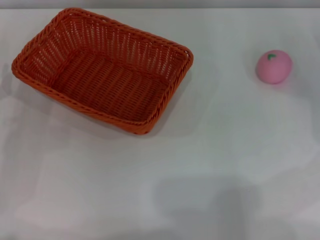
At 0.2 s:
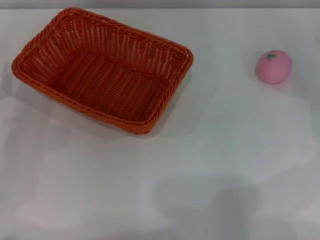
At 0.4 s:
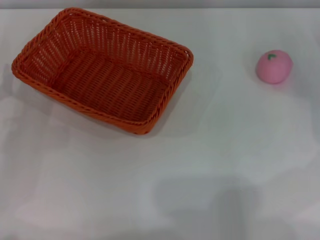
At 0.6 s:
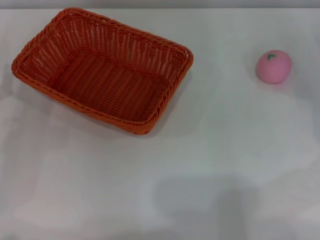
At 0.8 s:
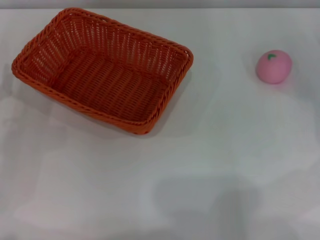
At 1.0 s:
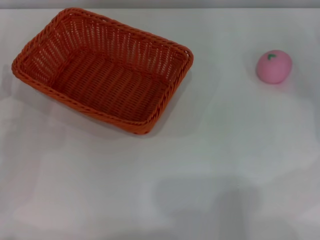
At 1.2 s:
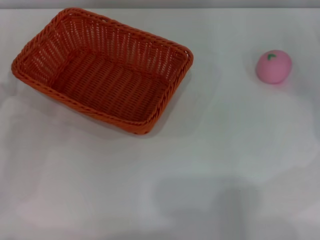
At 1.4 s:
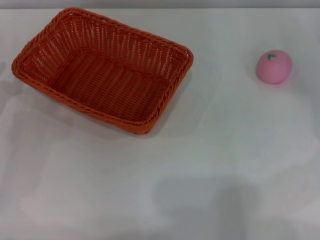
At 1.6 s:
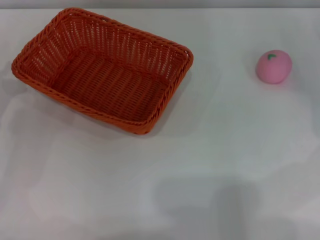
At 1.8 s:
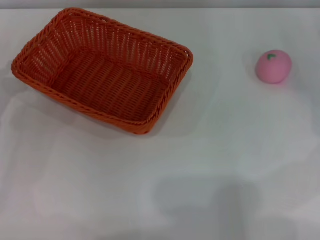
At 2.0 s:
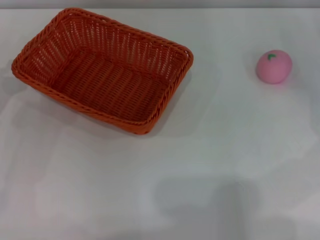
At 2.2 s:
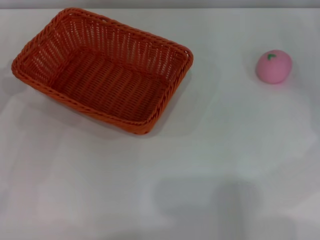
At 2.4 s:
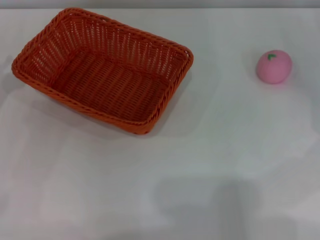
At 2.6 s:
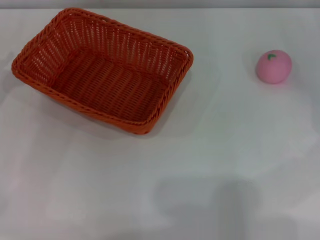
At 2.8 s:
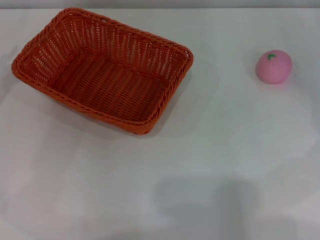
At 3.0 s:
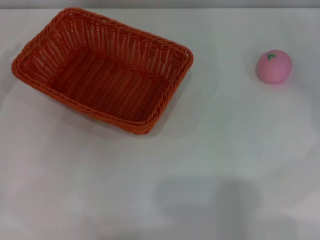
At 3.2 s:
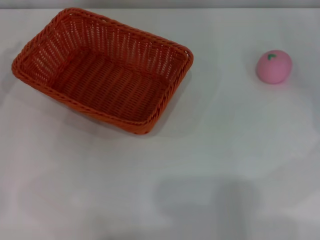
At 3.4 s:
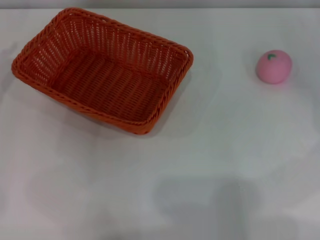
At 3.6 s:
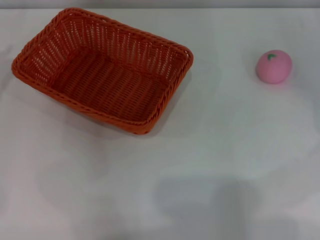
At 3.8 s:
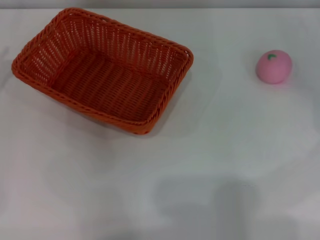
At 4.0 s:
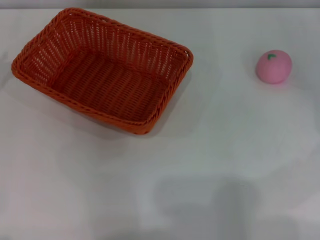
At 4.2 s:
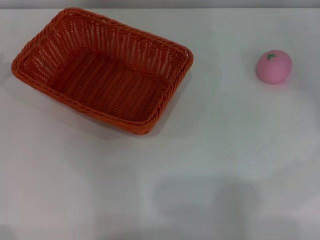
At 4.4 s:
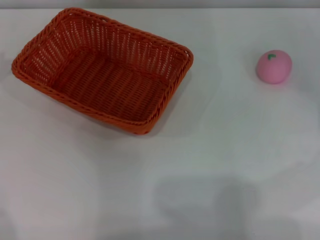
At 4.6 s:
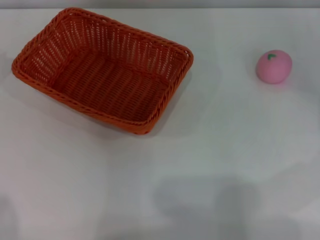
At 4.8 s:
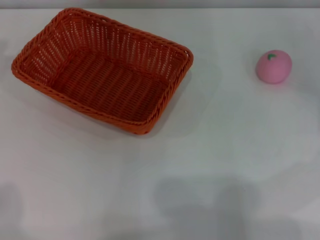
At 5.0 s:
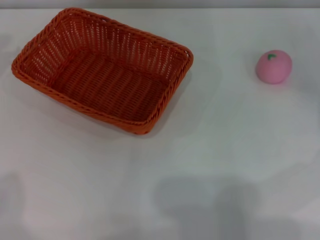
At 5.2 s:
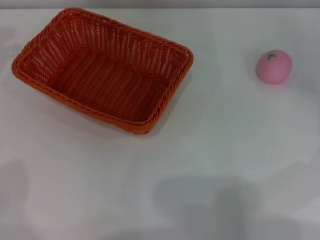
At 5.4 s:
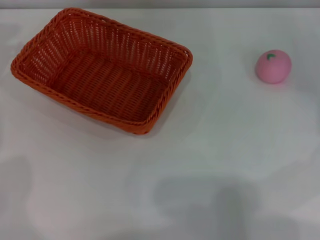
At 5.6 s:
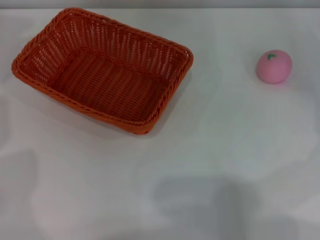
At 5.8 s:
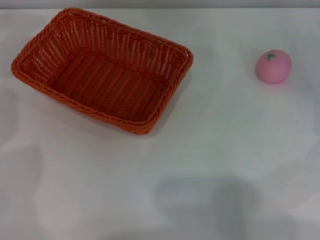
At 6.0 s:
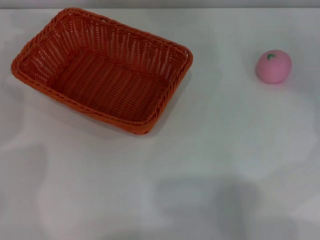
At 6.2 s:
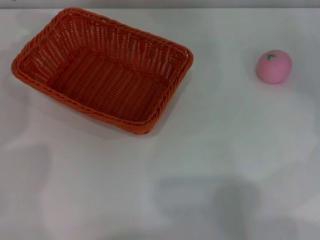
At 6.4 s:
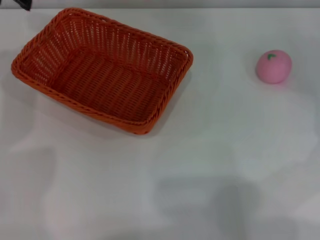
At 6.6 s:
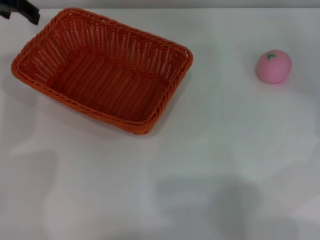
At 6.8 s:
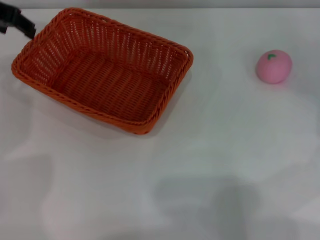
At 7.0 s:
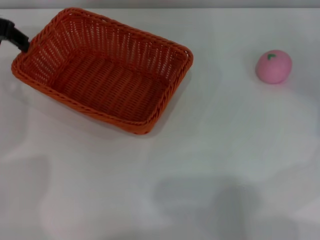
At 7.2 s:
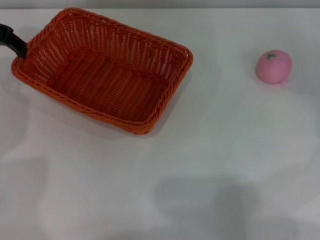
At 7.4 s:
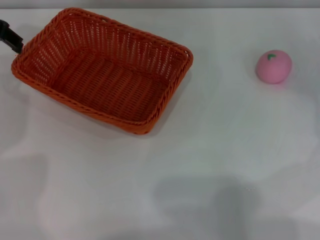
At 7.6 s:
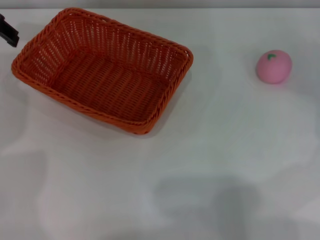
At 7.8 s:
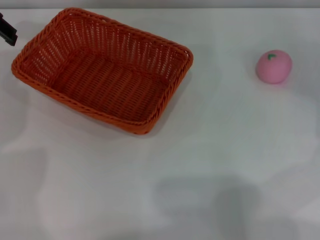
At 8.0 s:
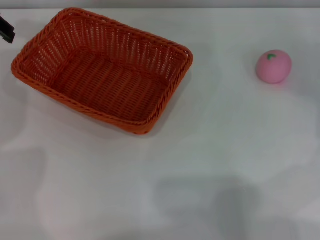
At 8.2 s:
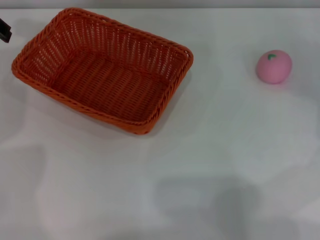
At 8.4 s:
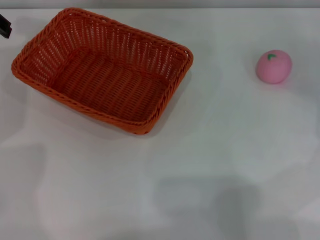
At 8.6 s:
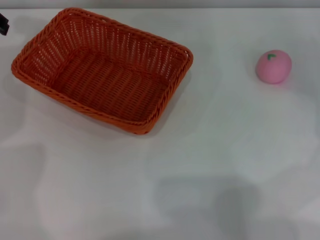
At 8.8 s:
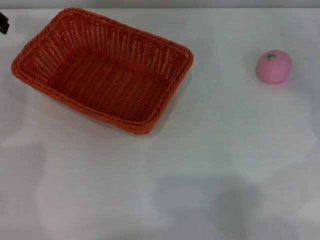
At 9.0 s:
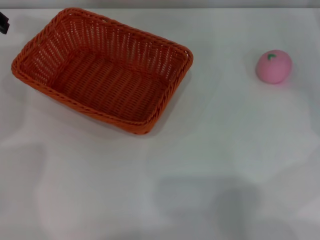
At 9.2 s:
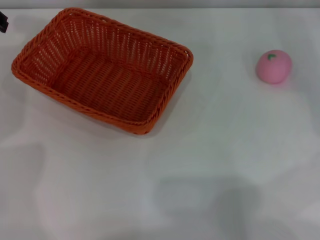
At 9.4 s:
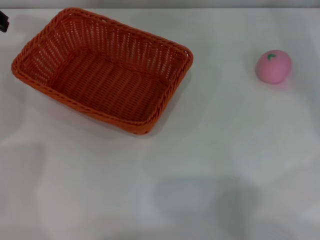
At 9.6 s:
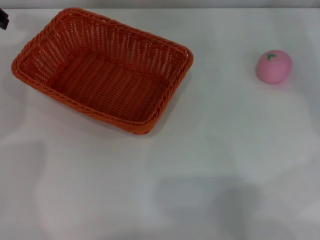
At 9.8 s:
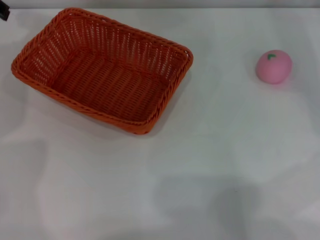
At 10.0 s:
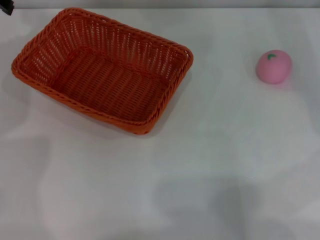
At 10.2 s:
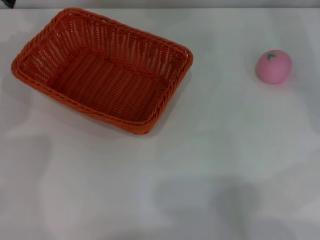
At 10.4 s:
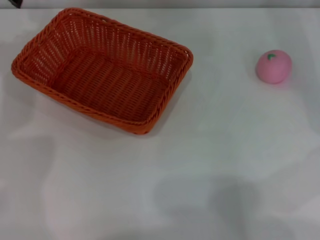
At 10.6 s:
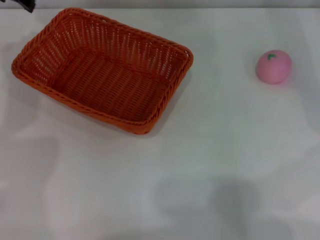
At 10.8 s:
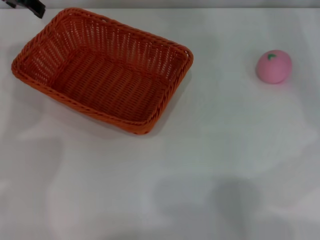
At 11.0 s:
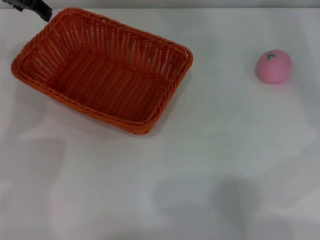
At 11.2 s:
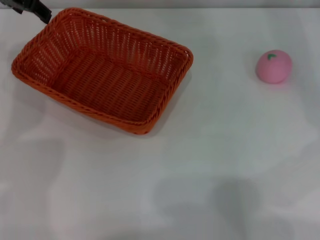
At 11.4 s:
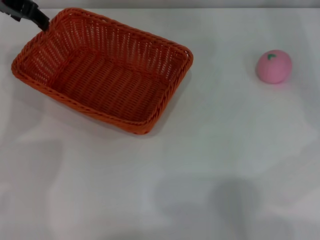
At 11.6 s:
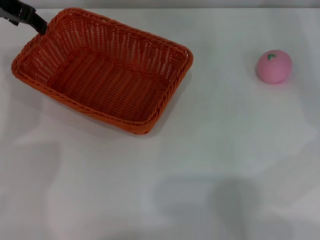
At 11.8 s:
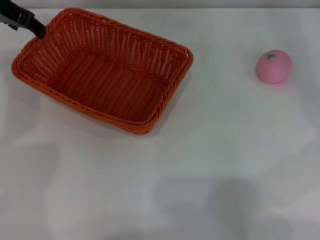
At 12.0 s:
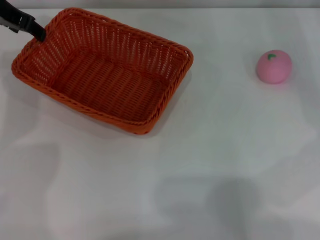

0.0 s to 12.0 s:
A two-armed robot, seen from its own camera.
10.4 to 12.0 s: The grippers stay close to where they were, moving slightly.

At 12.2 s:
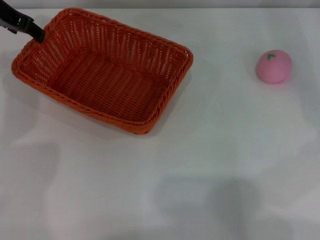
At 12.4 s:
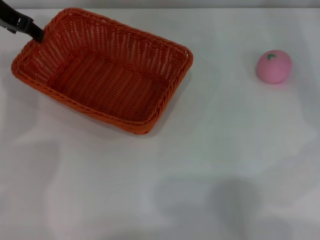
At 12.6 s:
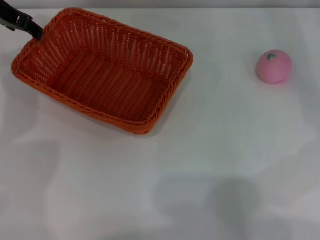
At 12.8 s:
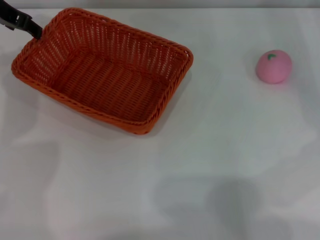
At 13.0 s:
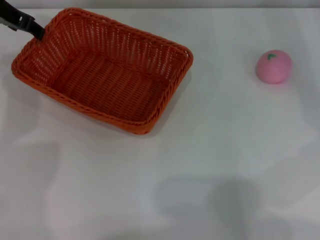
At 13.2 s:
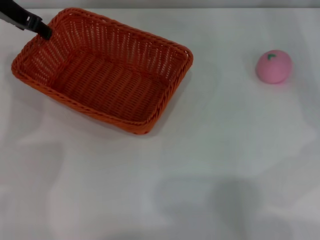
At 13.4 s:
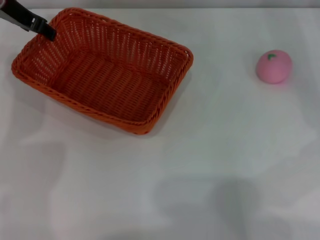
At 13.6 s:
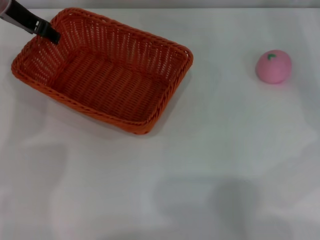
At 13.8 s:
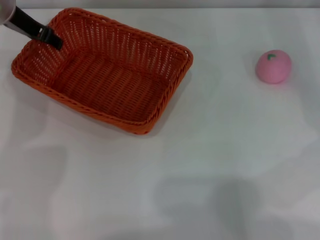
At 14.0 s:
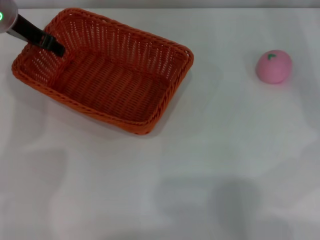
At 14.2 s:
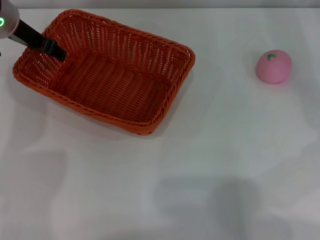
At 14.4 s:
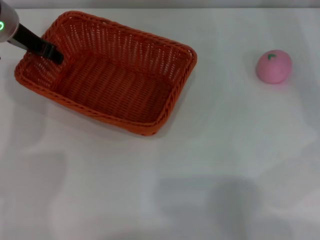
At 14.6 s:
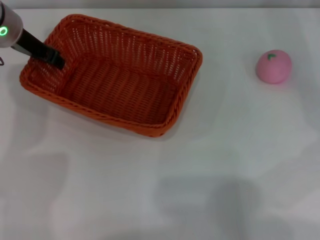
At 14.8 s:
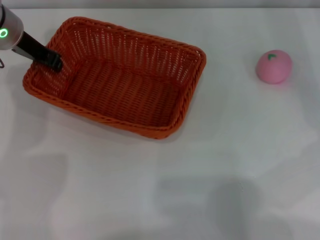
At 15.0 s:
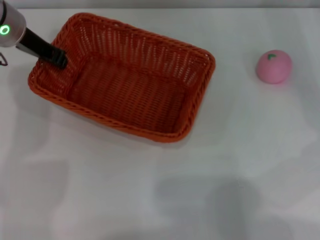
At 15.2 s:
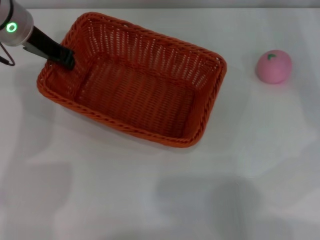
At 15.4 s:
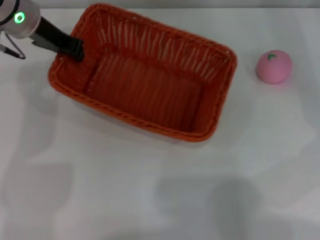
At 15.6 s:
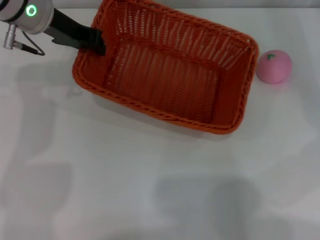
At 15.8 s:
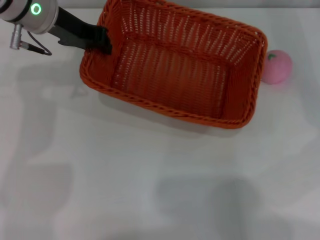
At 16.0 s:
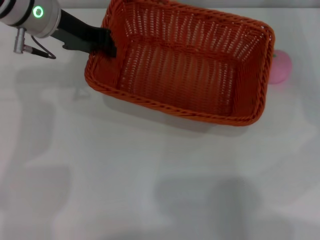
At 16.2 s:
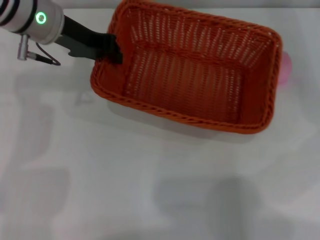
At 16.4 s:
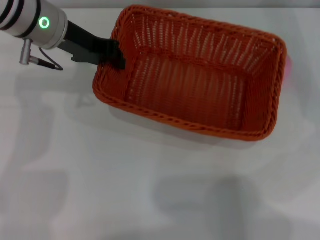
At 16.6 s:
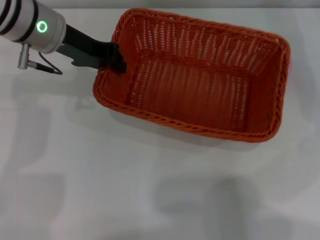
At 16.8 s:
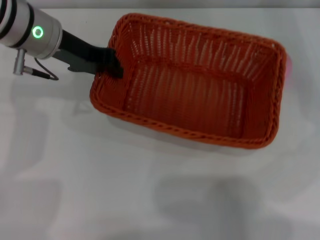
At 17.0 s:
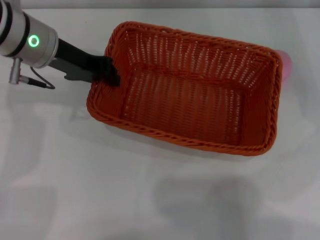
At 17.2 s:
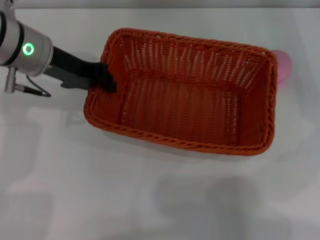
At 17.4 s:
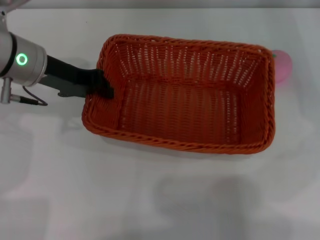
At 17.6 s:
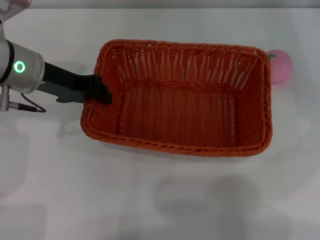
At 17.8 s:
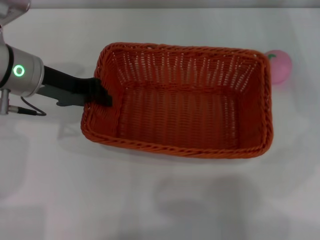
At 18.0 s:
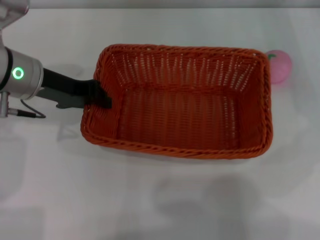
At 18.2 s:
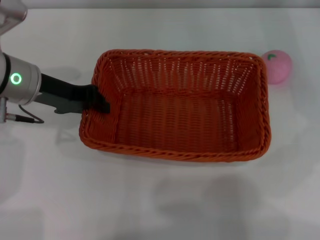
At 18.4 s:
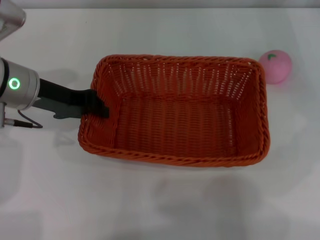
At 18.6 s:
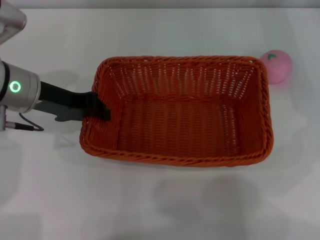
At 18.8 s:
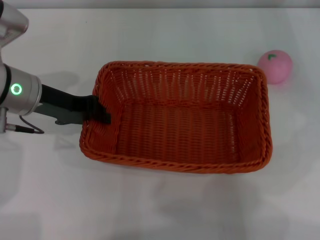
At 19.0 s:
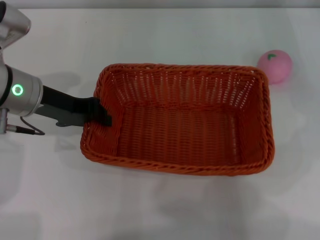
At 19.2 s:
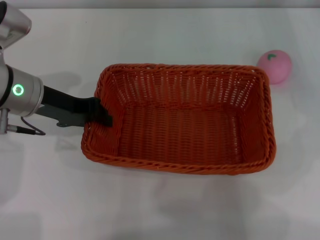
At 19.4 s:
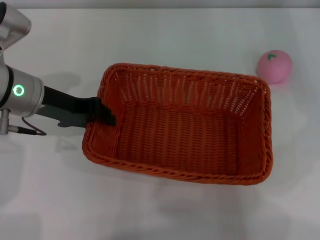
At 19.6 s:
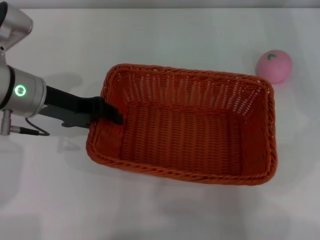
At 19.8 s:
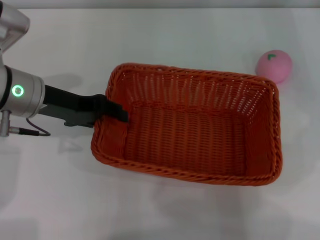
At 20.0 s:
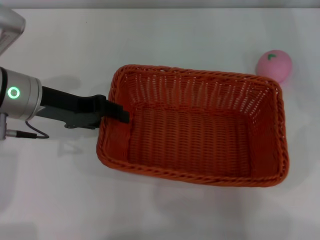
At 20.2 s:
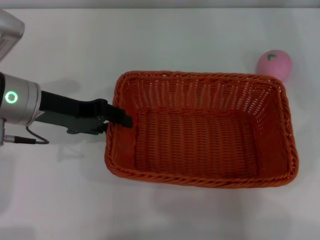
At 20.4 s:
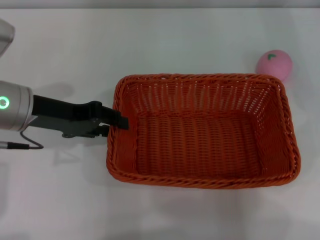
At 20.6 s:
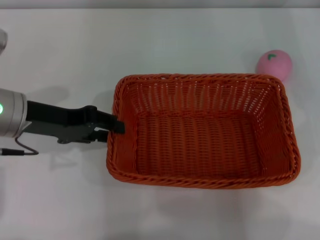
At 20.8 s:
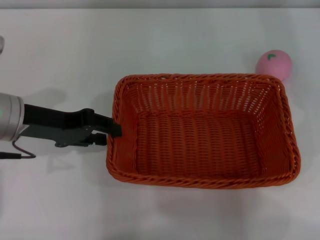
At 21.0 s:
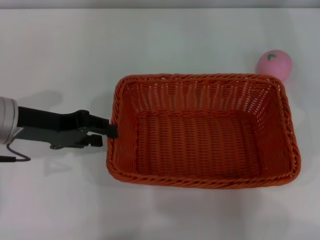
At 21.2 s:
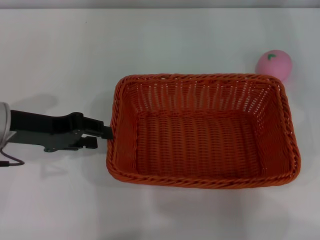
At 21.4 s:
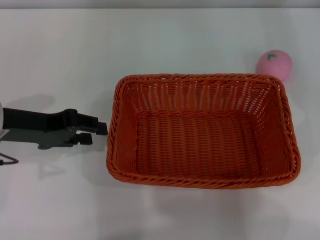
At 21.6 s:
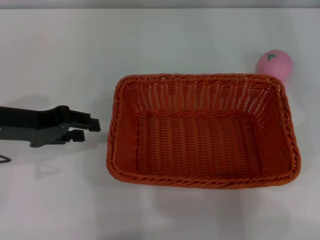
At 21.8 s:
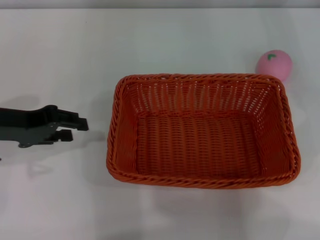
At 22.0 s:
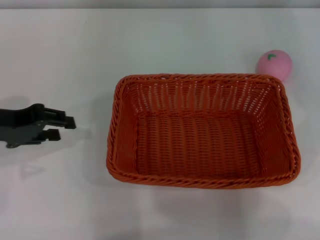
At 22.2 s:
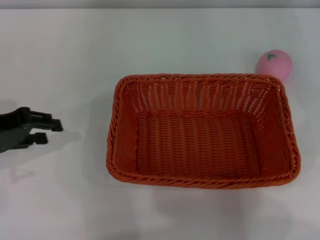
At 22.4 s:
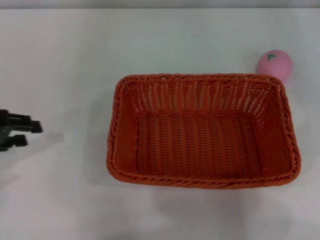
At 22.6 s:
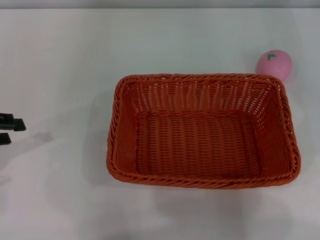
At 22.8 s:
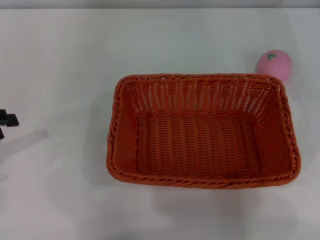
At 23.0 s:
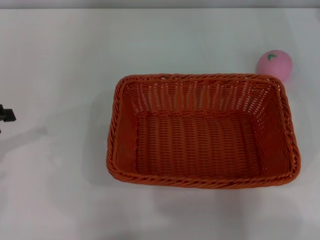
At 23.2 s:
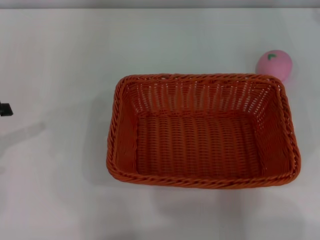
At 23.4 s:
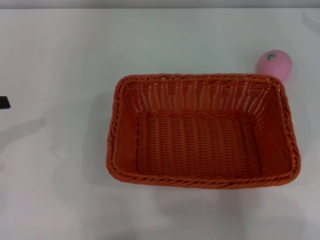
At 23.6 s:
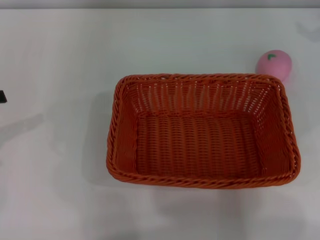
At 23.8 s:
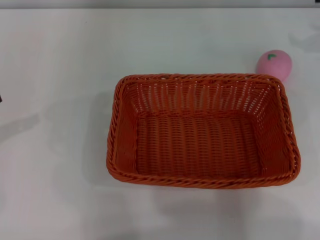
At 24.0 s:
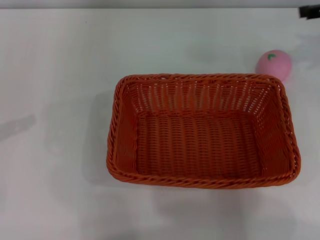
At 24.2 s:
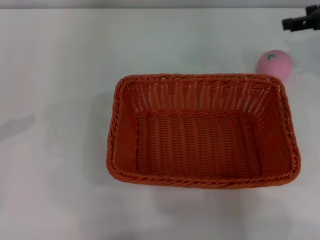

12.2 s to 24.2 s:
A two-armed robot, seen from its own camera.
Step, 12.2 to 15.2 s: Pick up the light basket with the left gripper.
Step, 15.4 to 21.4 s: Place the light basket in the center of view with the right gripper.
12.2 to 13.8 s: The grippers stay close to where they were, moving slightly.
13.8 to 15.2 s: The left gripper closes its fingers.
16.6 to 18.2 s: The left gripper shifts approximately 5 cm backward.
18.2 to 19.8 s: There are only small adjustments of the grippers.
19.8 to 21.2 s: The left gripper moves about 5 cm.
21.2 to 22.6 s: The left gripper is displaced to the left by some 10 cm.
22.6 to 24.2 s: The right gripper shifts approximately 10 cm to the left and upward.
